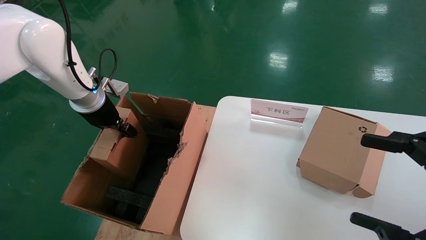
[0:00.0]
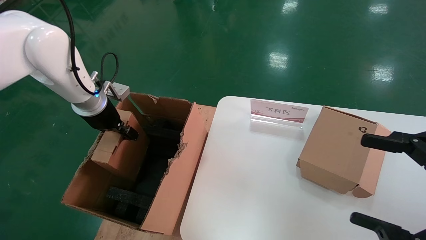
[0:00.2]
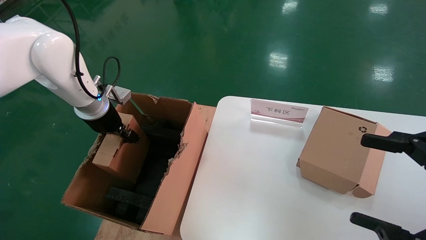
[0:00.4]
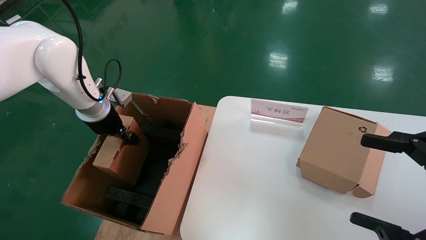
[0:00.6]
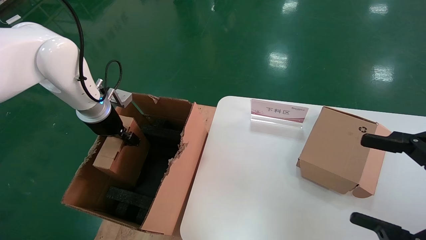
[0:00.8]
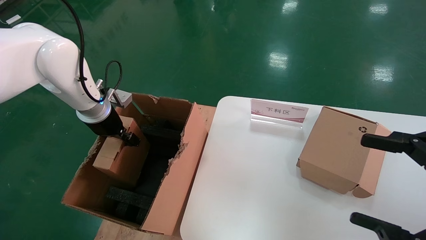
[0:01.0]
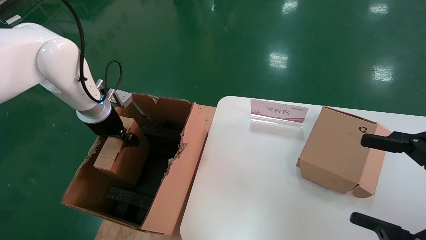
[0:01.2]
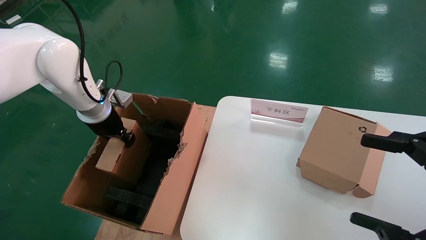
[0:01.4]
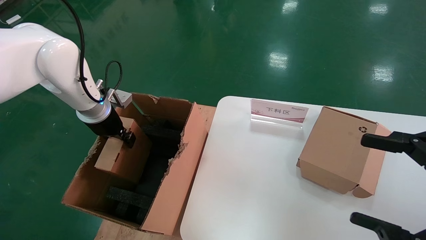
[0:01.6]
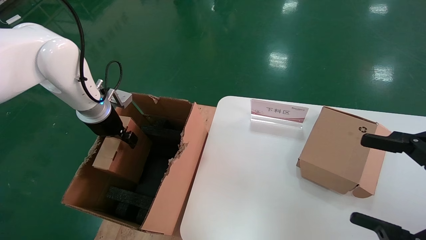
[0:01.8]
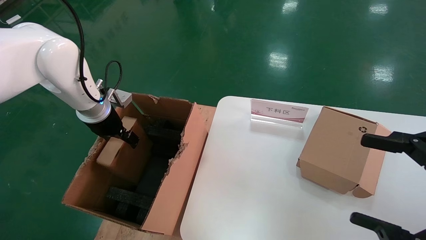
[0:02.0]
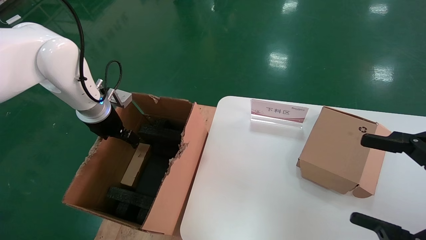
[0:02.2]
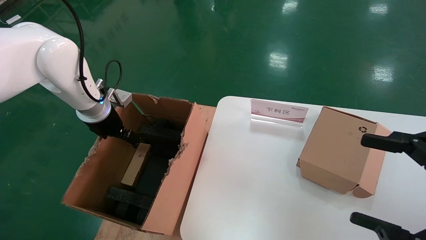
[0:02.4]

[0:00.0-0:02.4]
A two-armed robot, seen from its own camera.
Task of the whole recording: put the box on the table into the big box.
Step, 0:00.0 to 0:02.0: Place the paper box in the another big box.
0:00.0 to 0:01.2: The grippers make only small movements.
0:01.2 to 0:02.4: The left gripper opens up.
